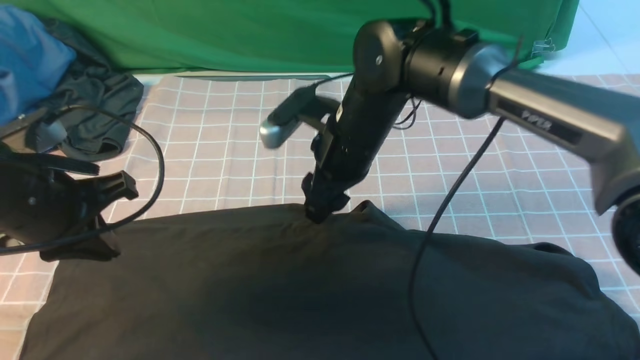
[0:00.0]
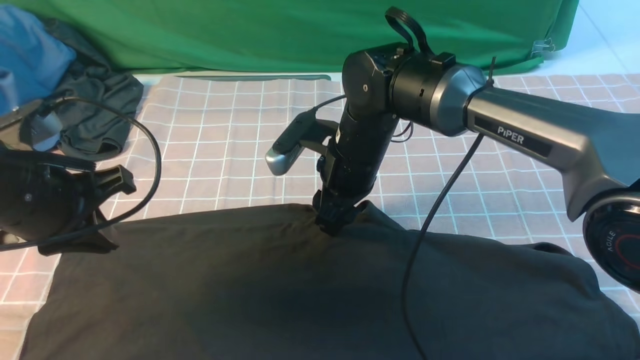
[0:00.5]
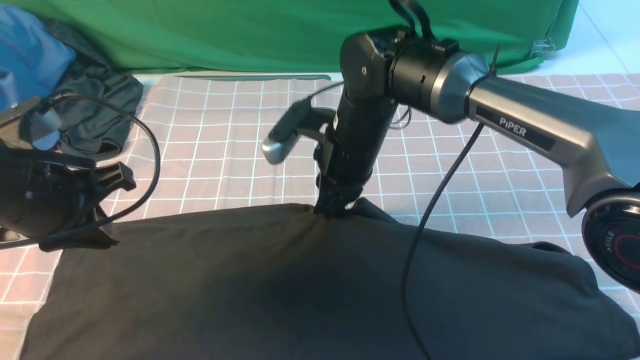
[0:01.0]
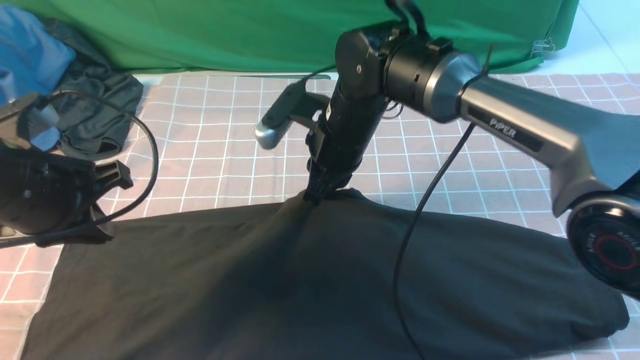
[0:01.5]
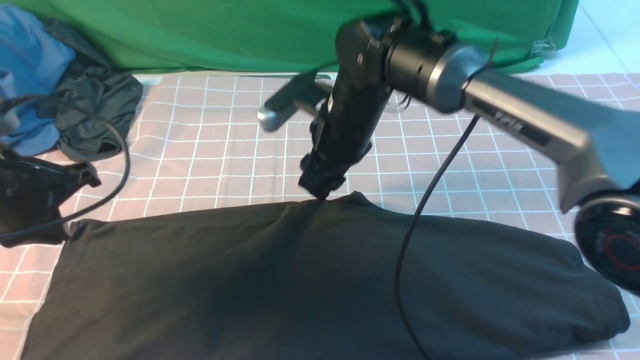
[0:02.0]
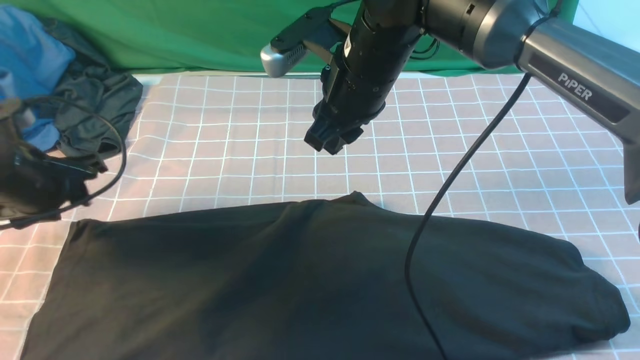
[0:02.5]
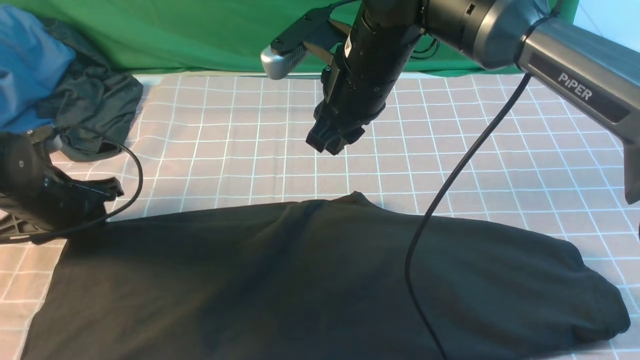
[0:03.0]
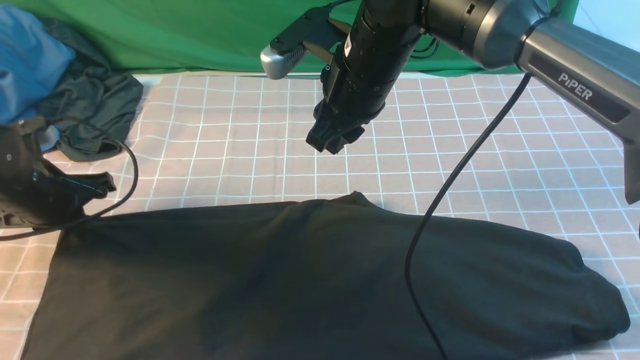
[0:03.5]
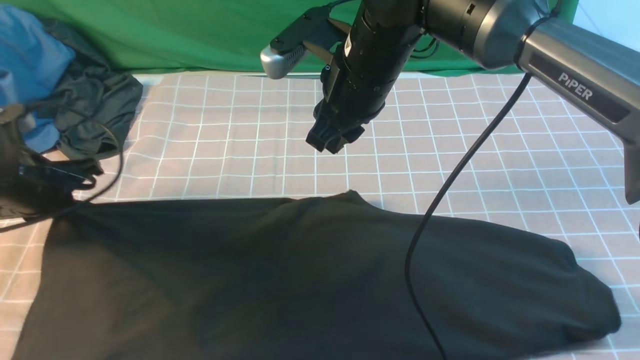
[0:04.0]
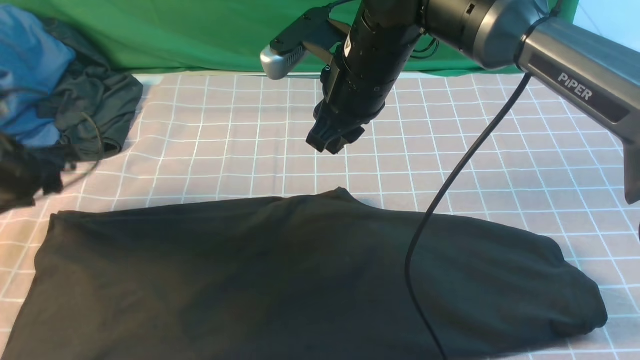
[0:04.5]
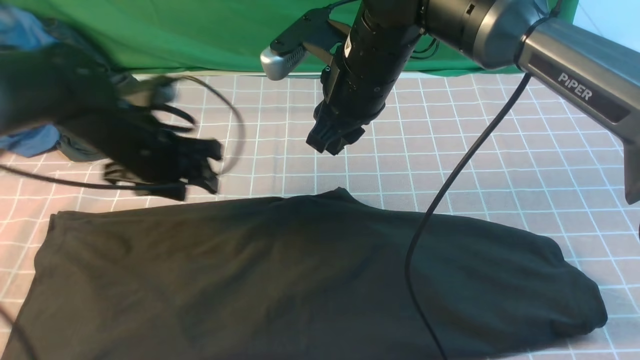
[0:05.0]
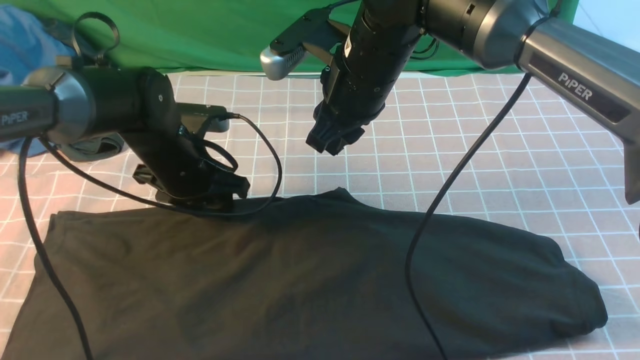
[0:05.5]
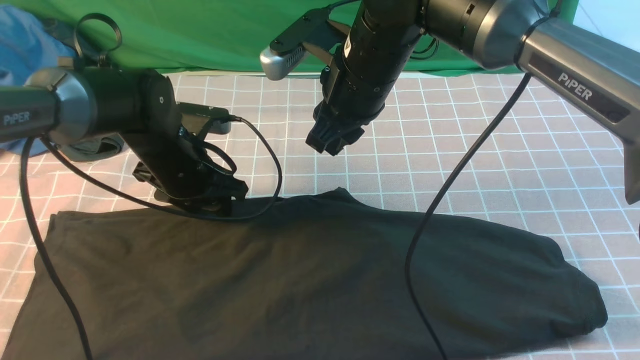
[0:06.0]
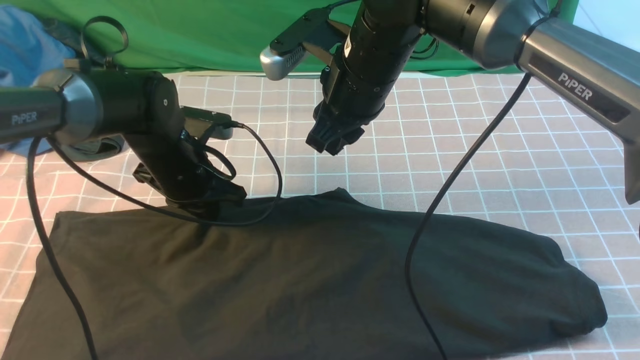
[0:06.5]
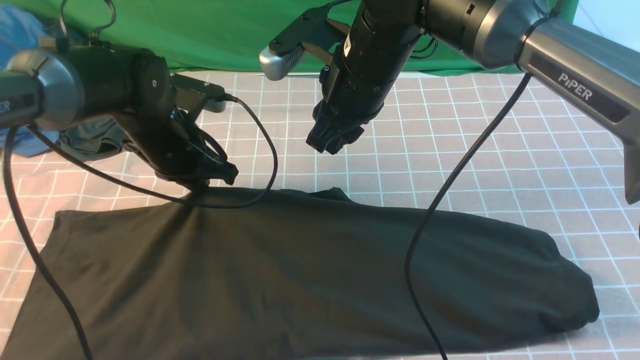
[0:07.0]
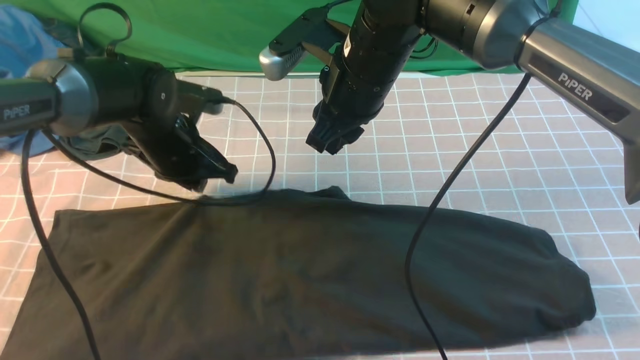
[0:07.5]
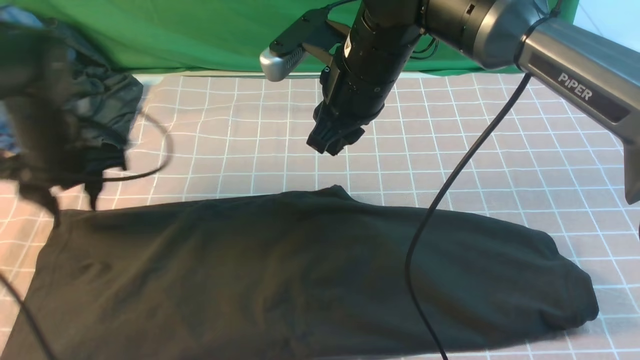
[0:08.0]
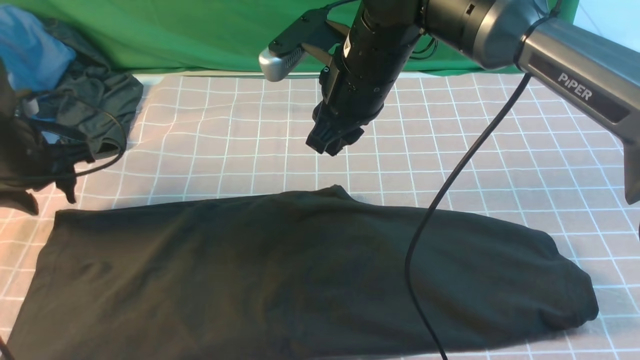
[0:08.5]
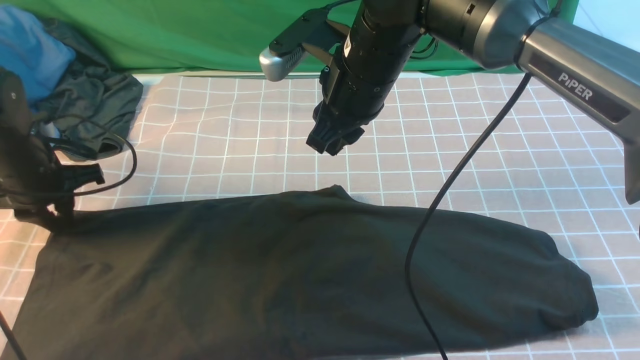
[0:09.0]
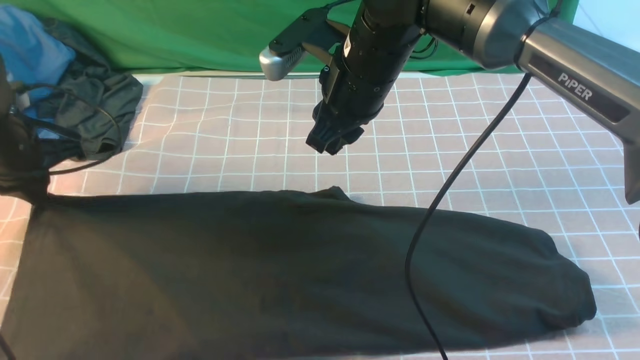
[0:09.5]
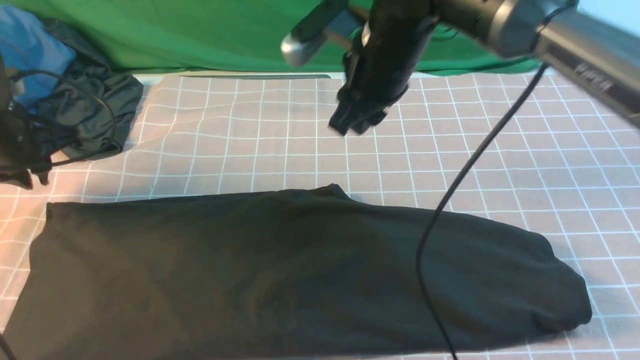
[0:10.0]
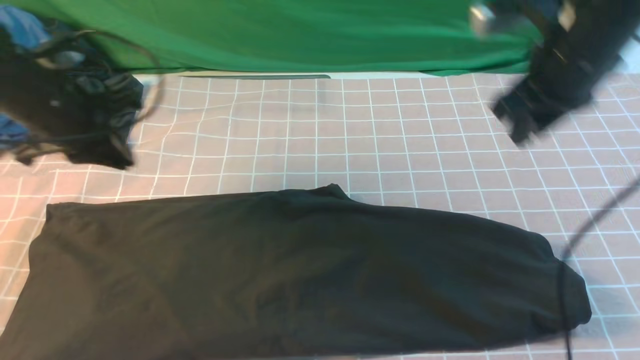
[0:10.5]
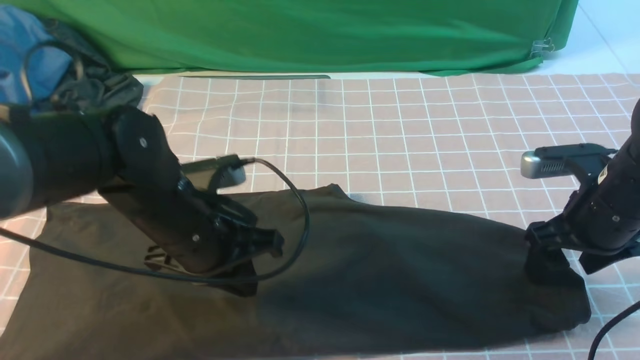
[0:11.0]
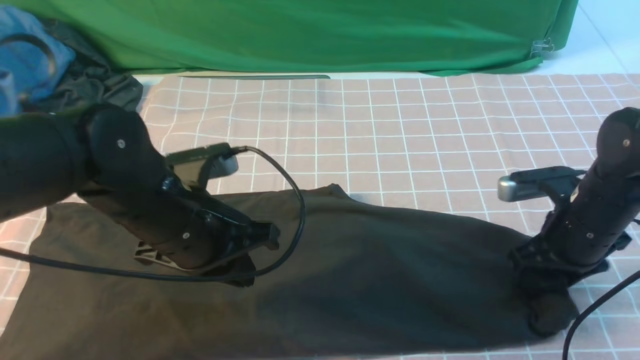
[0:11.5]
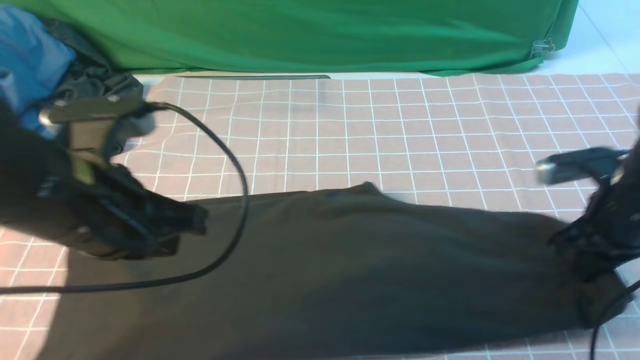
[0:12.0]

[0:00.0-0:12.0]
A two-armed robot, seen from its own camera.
Step, 0:00.0 to 0:11.5: use the right arm to clamp the right edge of the fabric.
0:00.0 to 0:02.0: The right gripper closes, then reopens.
0:02.0 to 0:04.0: The right gripper goes about 5 cm upward. The left gripper is displaced downward and forward by about 10 cm, and opens and closes again.
0:04.0 to 0:06.0: The left gripper travels to the right and forward by approximately 15 cm, and opens.
0:06.0 to 0:08.0: The left gripper goes about 10 cm to the left, and closes, then opens again.
0:08.0 to 0:10.0: The left gripper heads to the left, covering approximately 5 cm, and closes up.
0:10.0 to 0:12.0: The left gripper shifts roughly 25 cm to the right, backward and upward, and closes its fingers. The right gripper shifts some 25 cm to the right, downward and backward, and opens, then closes once more.

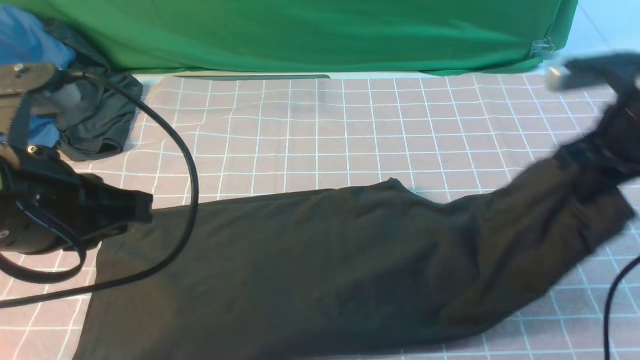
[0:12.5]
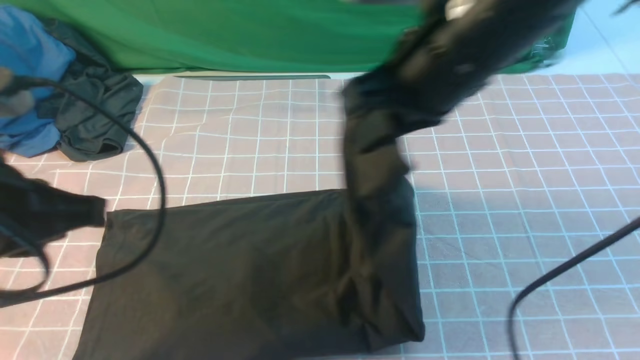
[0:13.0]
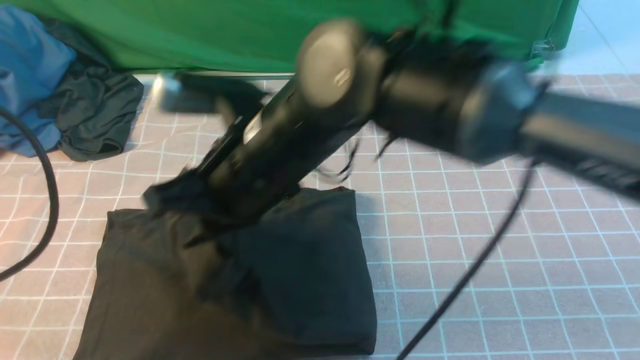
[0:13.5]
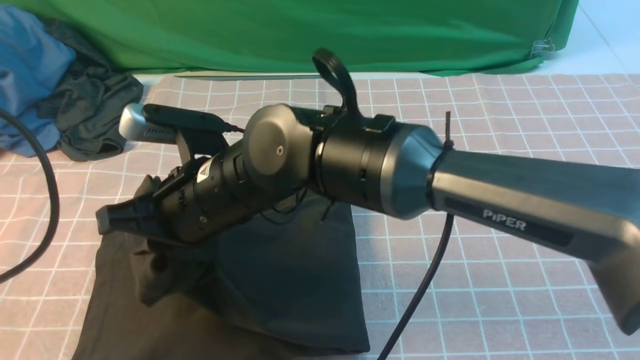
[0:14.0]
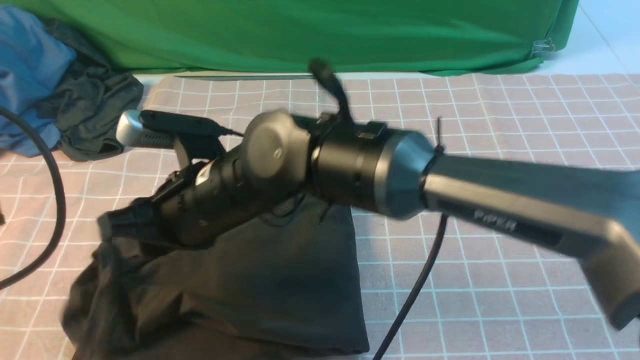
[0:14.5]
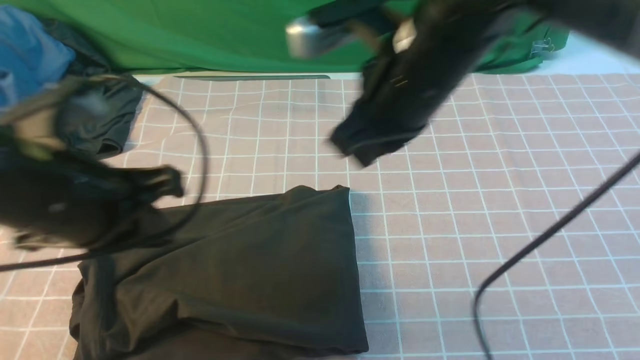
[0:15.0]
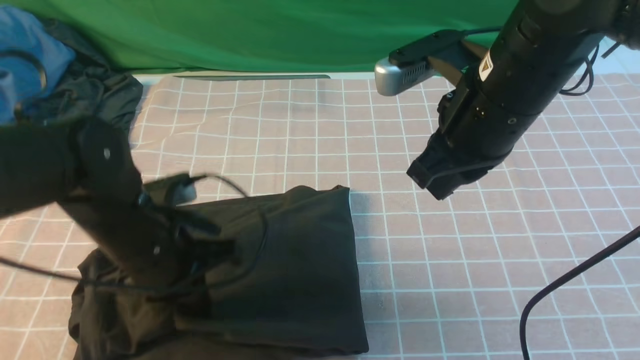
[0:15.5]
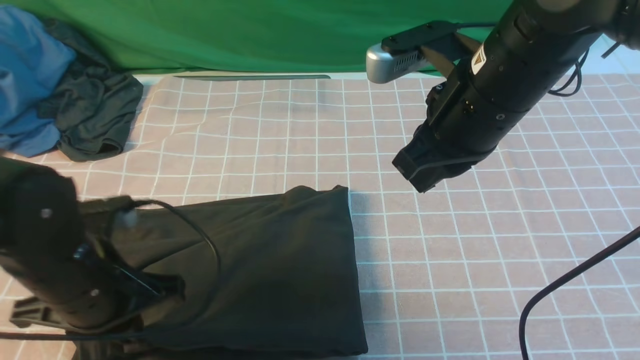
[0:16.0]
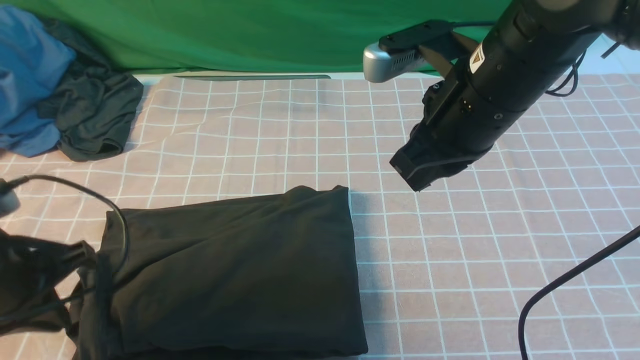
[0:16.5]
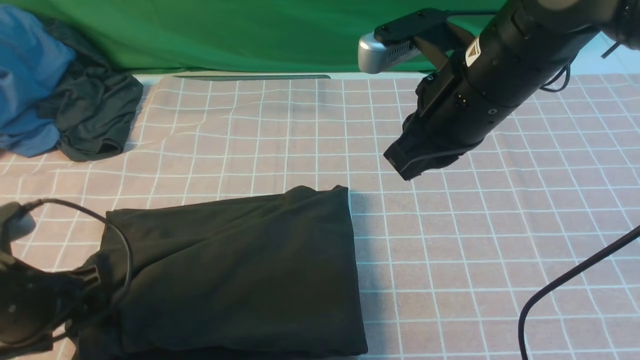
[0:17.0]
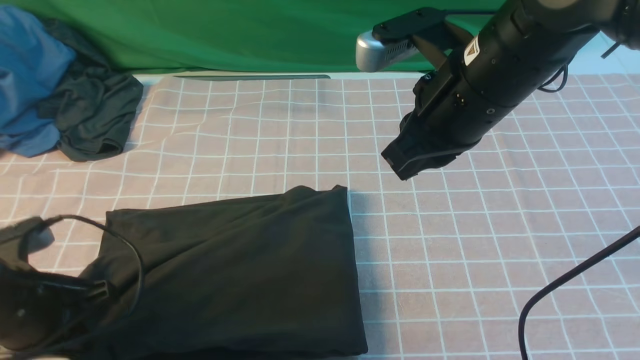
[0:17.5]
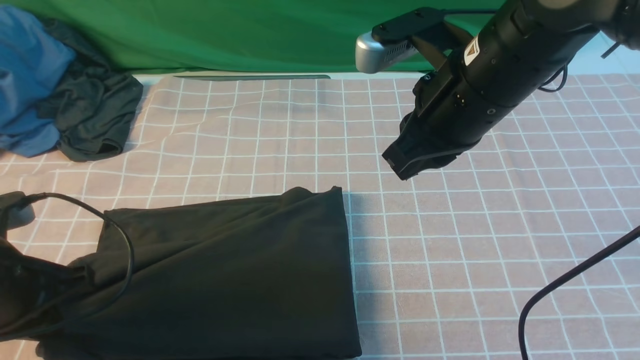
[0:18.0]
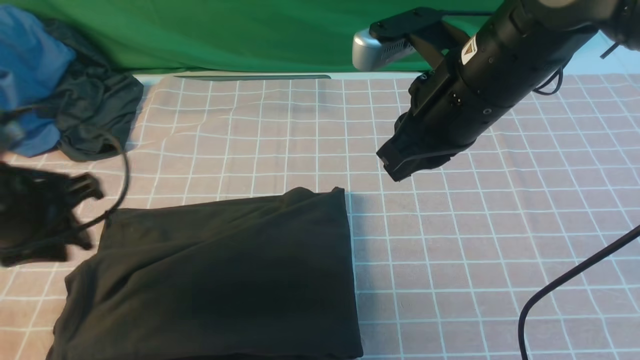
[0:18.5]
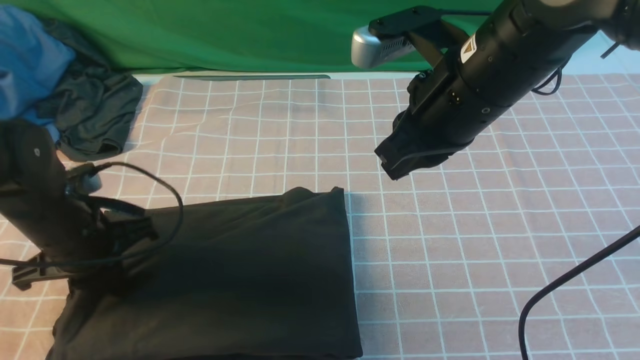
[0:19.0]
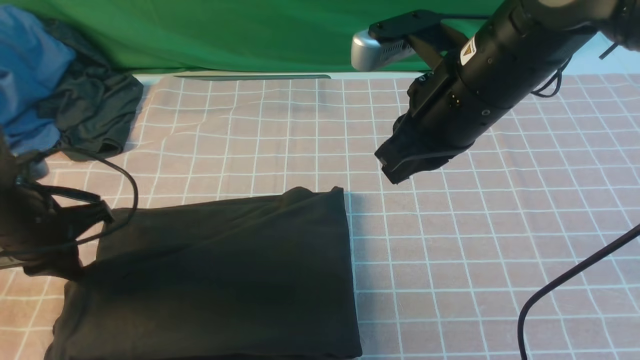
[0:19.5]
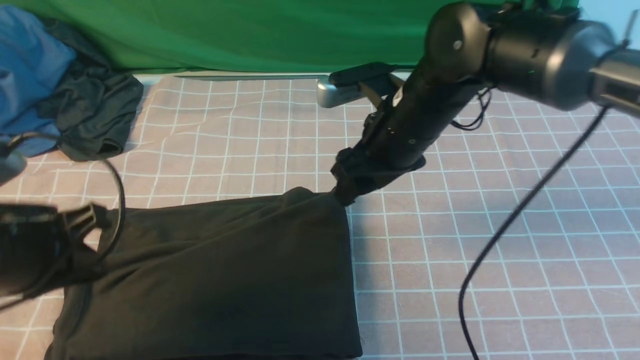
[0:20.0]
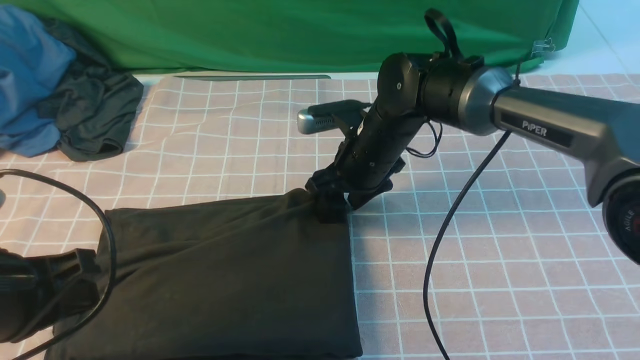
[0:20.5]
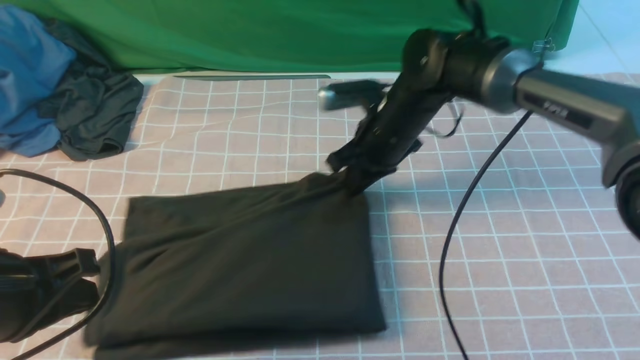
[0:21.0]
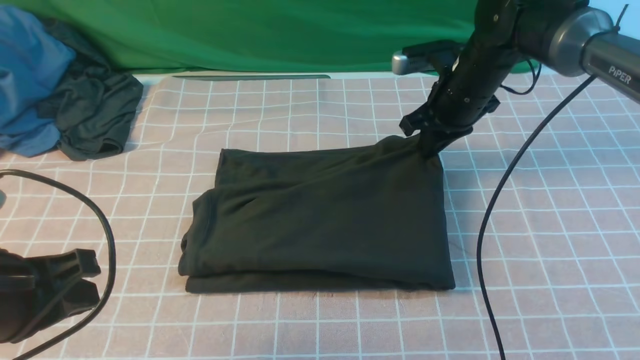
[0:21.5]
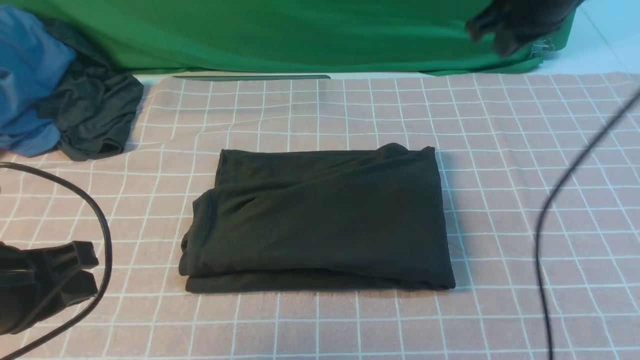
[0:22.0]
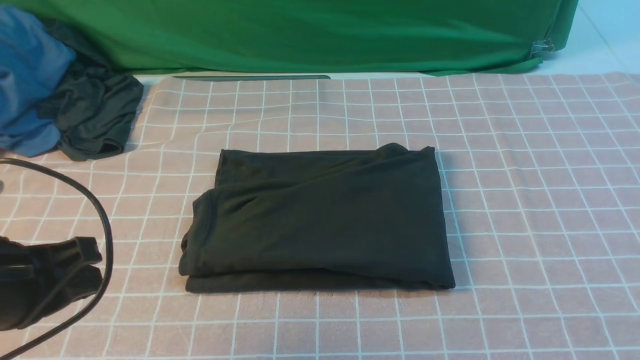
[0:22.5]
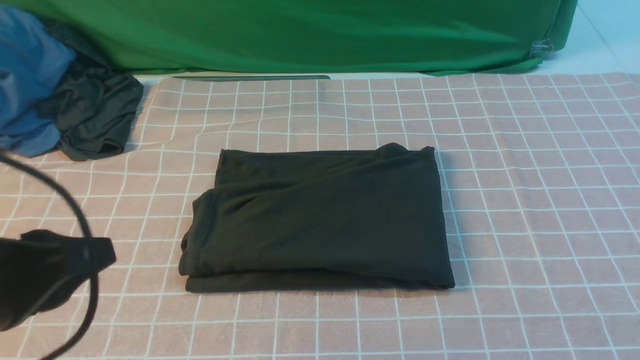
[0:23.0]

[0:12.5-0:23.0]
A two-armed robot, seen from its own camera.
Step, 0:12.5 to 0:14.5: use the right arm to drag the right edge of the fabric to the left and folds it over the left edge.
0:12.5 to 0:14.5: The left gripper travels backward by approximately 5 cm. Meanwhile the right gripper heads to the left, covering roughly 35 cm.
0:14.5 to 0:16.5: The right gripper is displaced to the right by about 20 cm, and closes. Meanwhile the left gripper goes about 15 cm downward and forward.
0:16.5 to 0:19.0: The left gripper is displaced forward and downward by roughly 10 cm, and opens and closes again.
0:19.0 to 0:21.0: The left gripper goes about 15 cm backward and upward. Meanwhile the right gripper moves downward and forward, roughly 20 cm, and opens and closes again.
0:21.0 to 0:23.0: The right gripper goes roughly 50 cm backward, to the right and upward, while the left gripper ends up some 5 cm from where it was.
